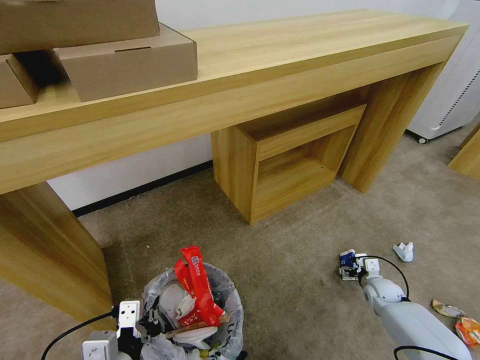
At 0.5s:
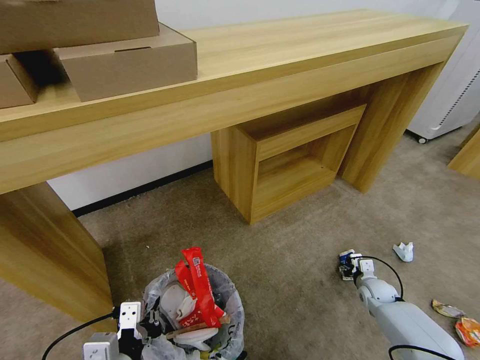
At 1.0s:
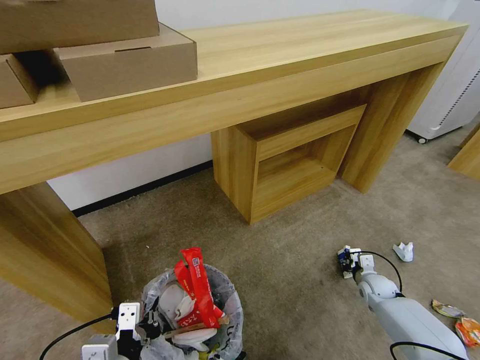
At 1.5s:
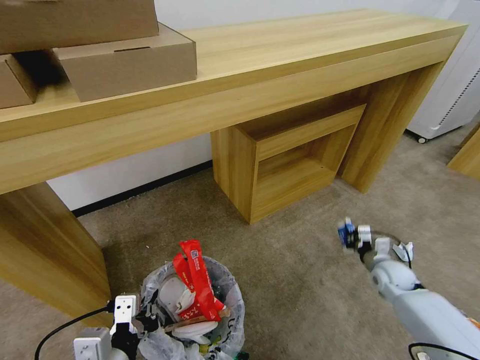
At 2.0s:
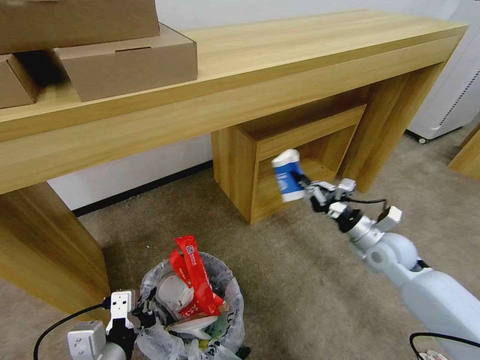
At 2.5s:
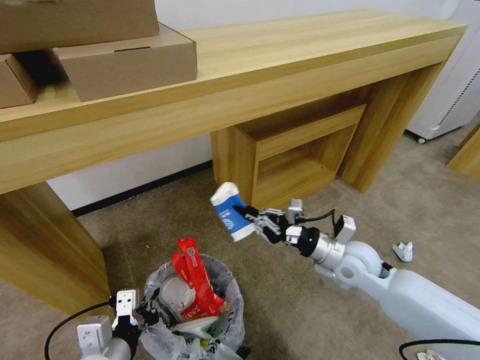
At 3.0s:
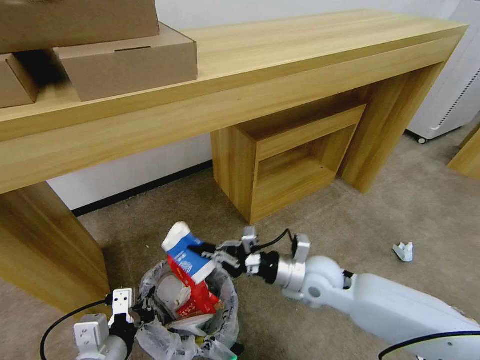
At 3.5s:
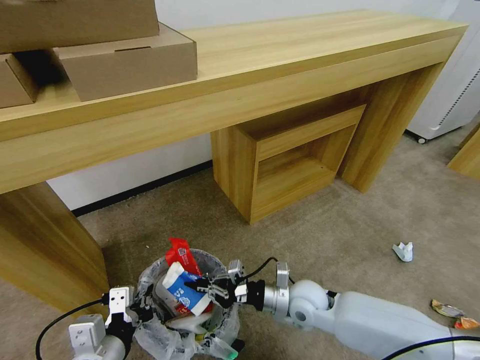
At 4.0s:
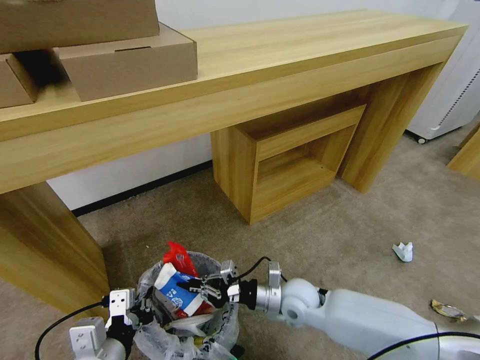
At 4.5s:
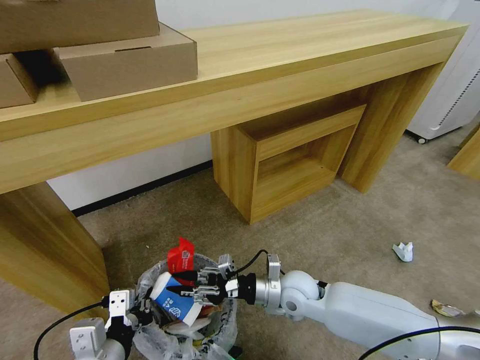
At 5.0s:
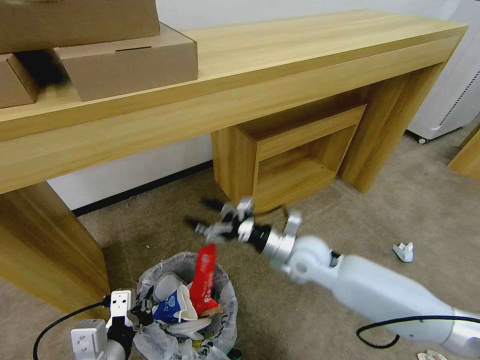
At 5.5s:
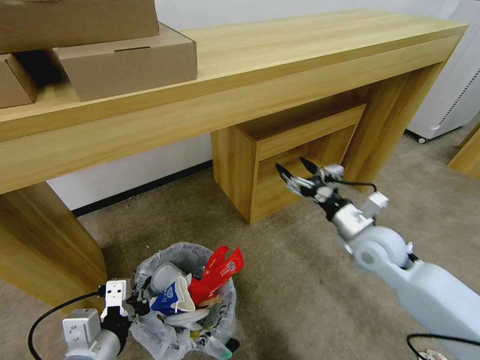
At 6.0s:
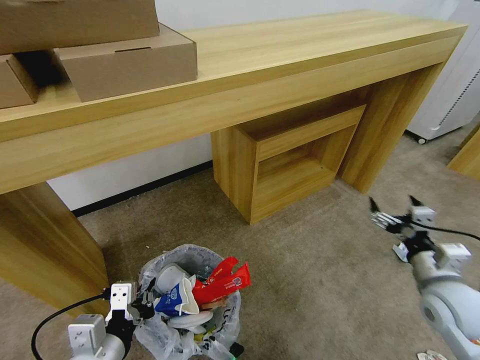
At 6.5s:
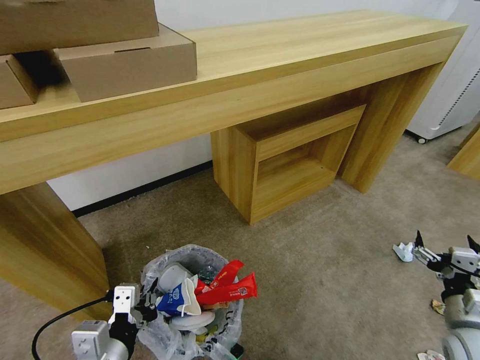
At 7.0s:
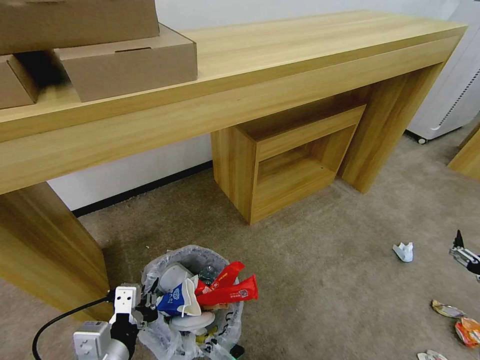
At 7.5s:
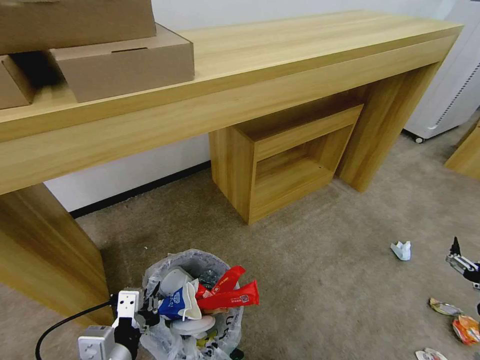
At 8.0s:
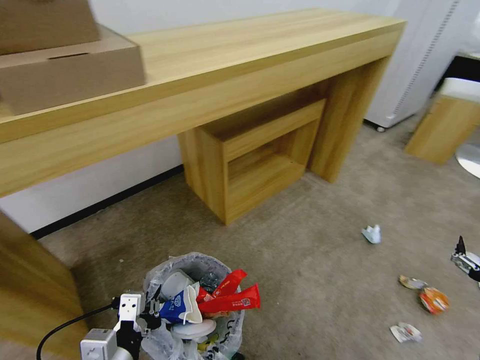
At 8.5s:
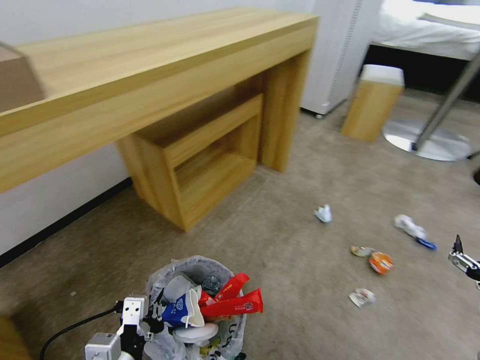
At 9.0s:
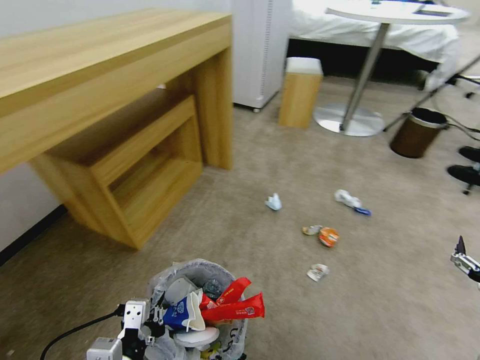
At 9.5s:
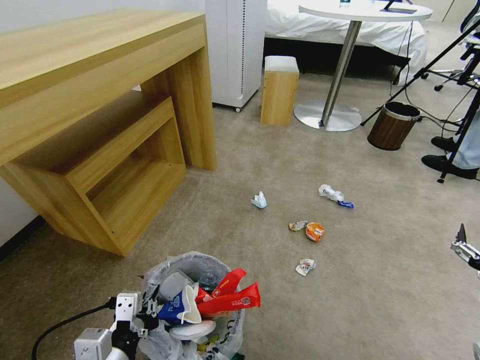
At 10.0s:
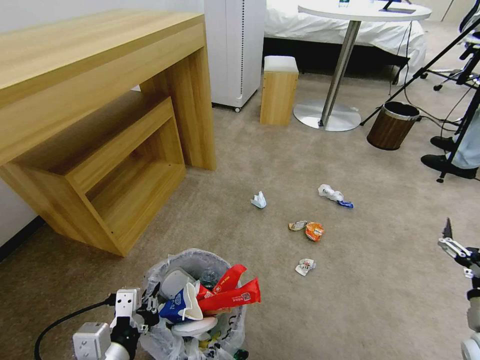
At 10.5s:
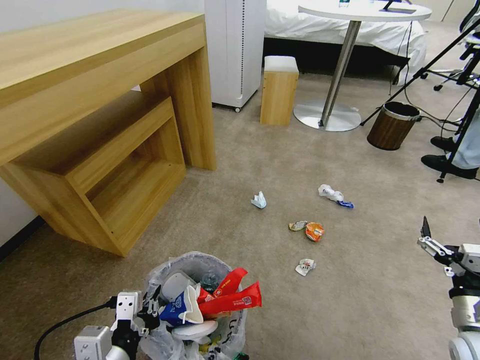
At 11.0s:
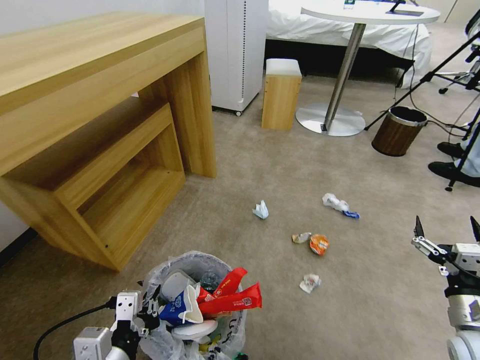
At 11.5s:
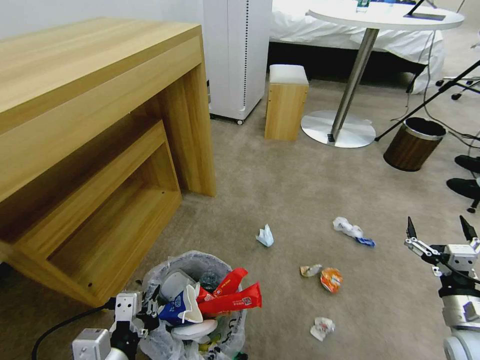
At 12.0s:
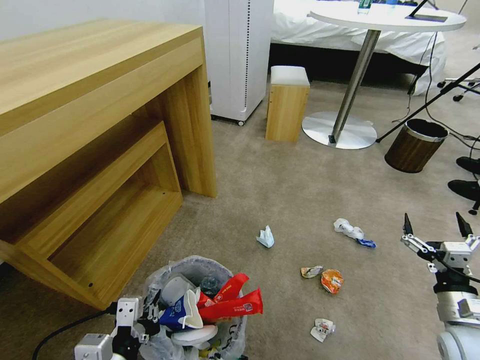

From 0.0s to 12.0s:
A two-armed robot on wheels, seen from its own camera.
Task of the whole recording: Pick up the trash bin and place the garbage on the floor into it.
From 0.0s to 2.0s: The right gripper travels upward by roughly 25 cm, and closes up.
From 2.0s to 4.0s: The right gripper is displaced to the left and downward by about 25 cm.
From 4.0s to 6.0s: The right gripper heads to the right and upward, covering about 30 cm, and opens its fingers.
From 6.0s to 8.0s: The right gripper goes about 10 cm backward and to the right.

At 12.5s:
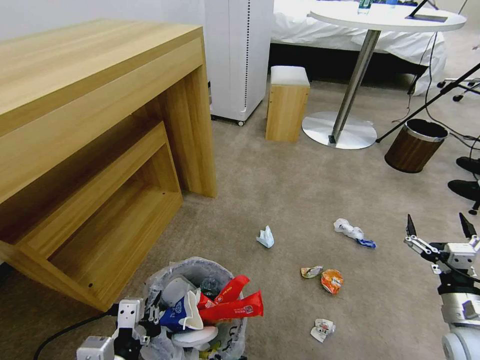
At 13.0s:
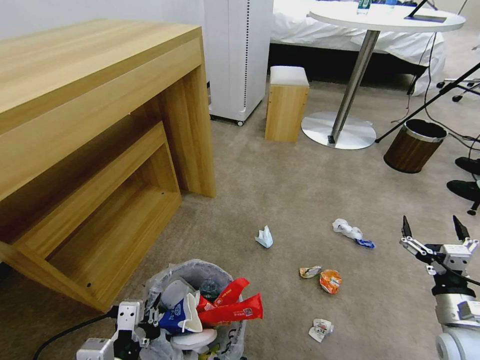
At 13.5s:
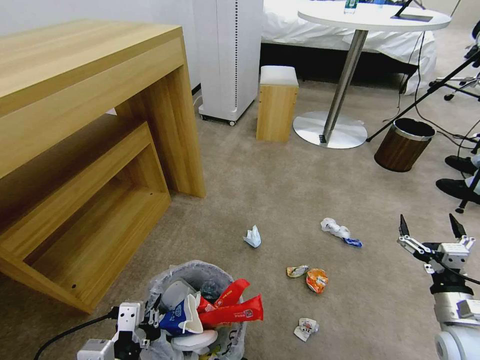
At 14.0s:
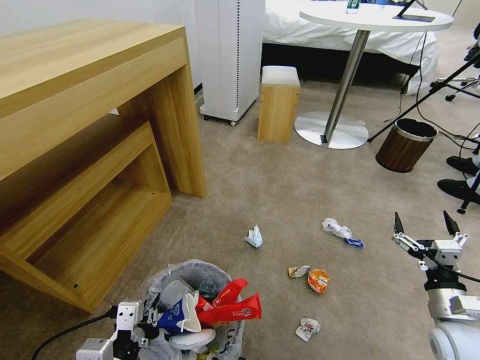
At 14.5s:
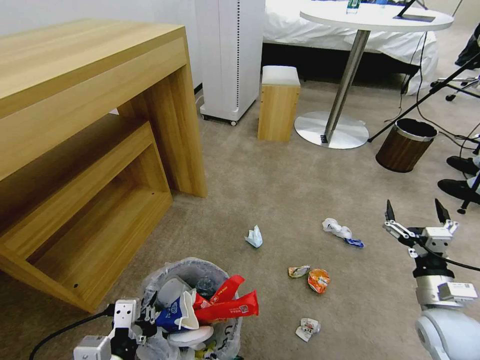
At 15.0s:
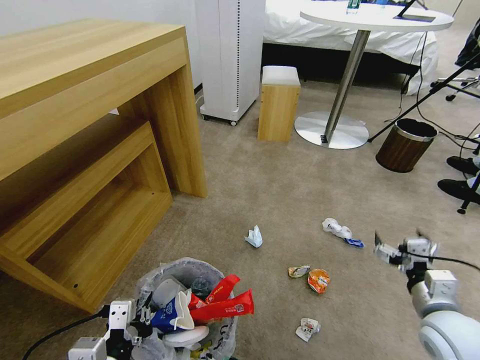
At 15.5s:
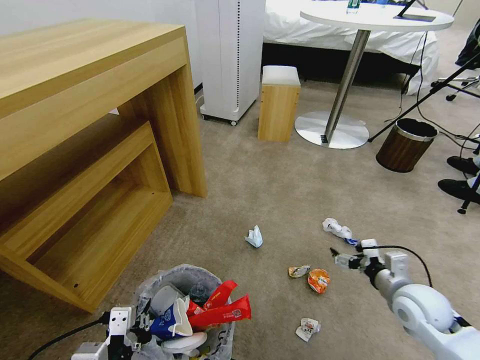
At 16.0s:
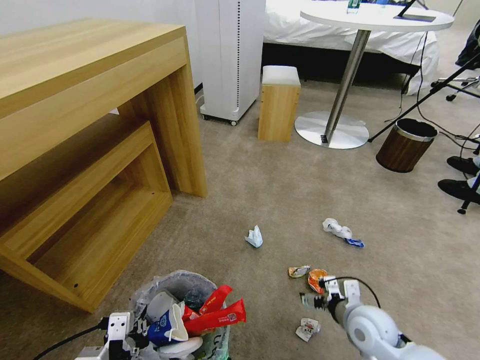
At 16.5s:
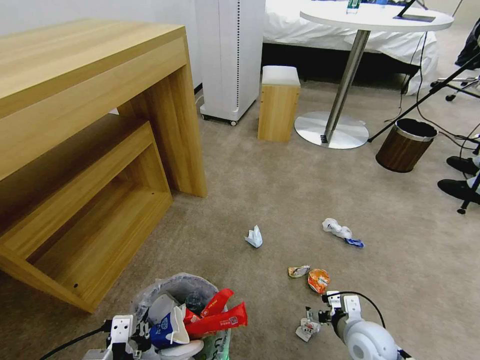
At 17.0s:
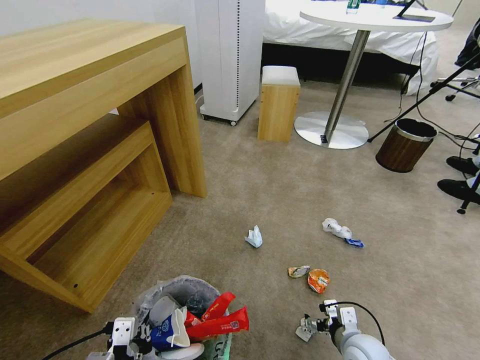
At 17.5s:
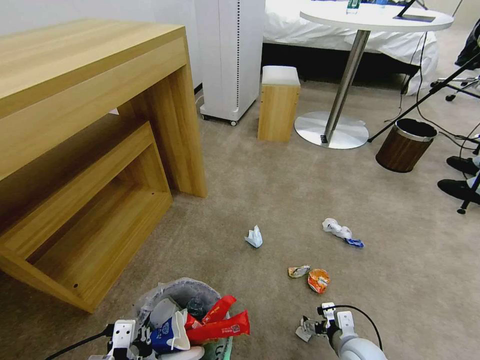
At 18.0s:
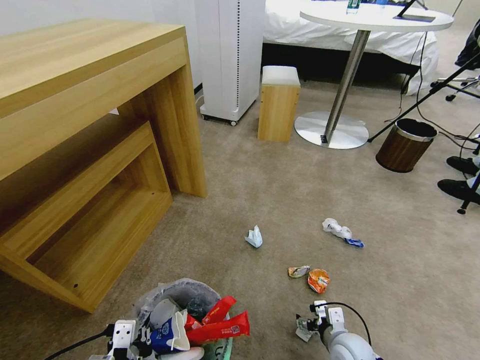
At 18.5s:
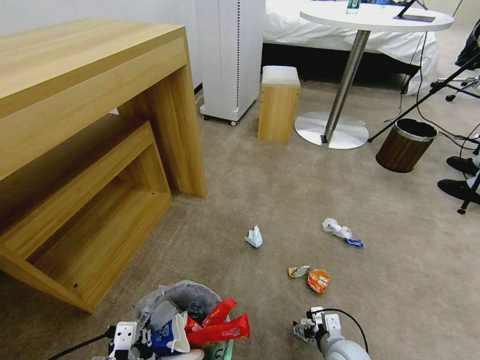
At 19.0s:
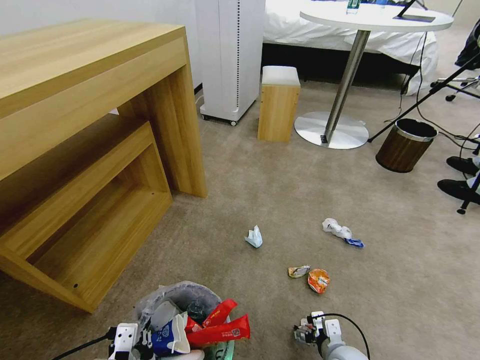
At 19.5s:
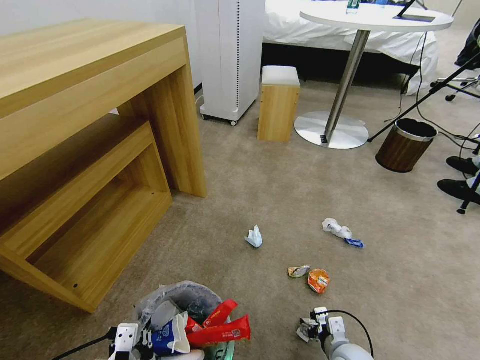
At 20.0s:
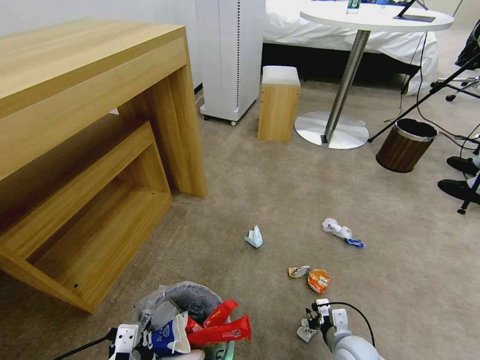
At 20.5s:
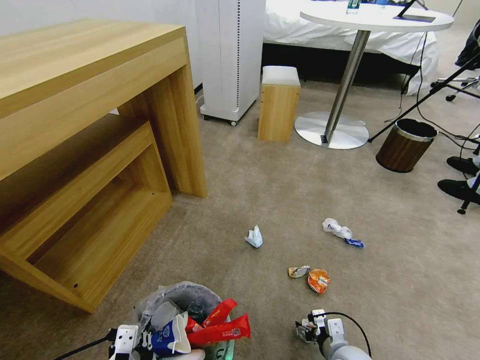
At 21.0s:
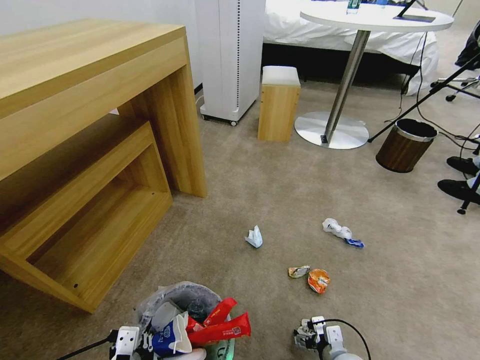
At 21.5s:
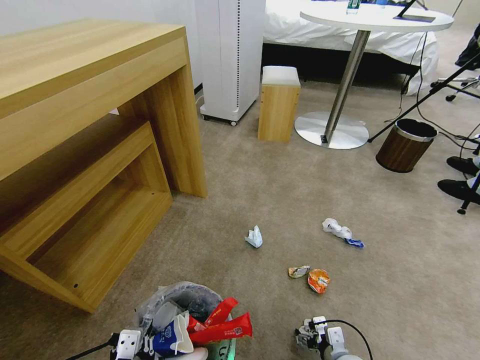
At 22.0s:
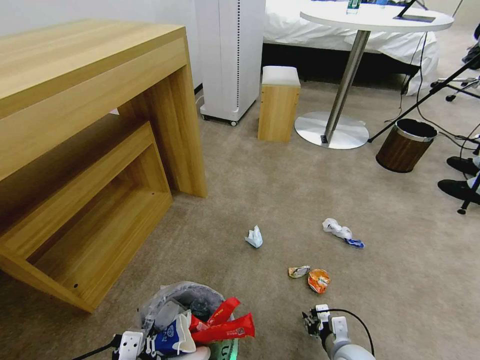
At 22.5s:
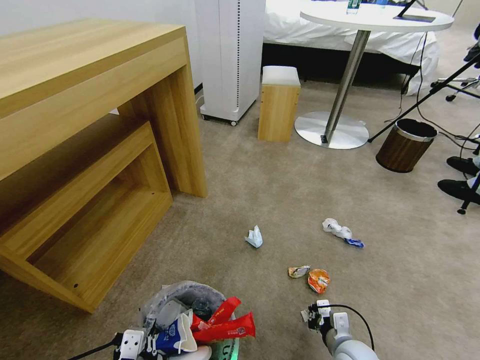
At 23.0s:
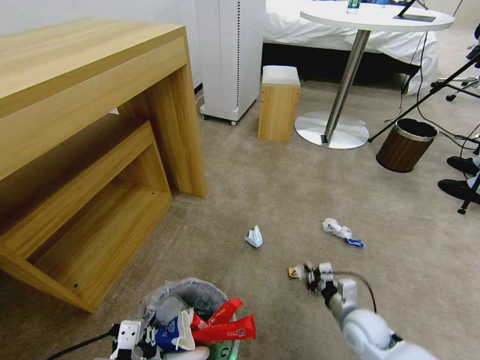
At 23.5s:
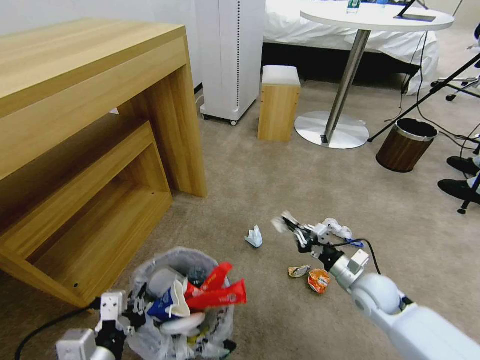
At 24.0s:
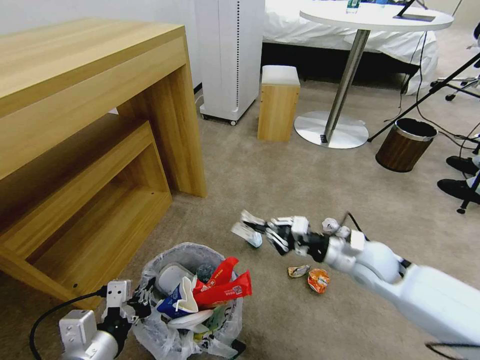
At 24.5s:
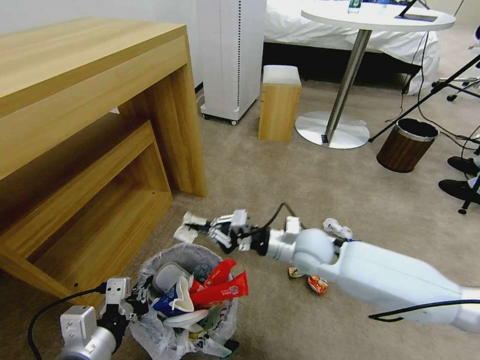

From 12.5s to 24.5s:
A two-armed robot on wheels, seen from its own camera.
Task of the whole recording: Pick up the trash bin and place the garbage on the floor into it.
From 14.5s to 16.5s: The right gripper shifts roughly 15 cm to the left and downward.
From 16.5s to 18.5s: The right gripper heads downward, covering about 5 cm.
From 18.5s to 20.5s: The right gripper closes, then reopens.
From 20.5s to 22.5s: The right gripper closes its fingers.
From 22.5s to 24.5s: The left gripper heads forward and upward, covering roughly 10 cm, while the right gripper is displaced upward, forward and to the left by approximately 30 cm.

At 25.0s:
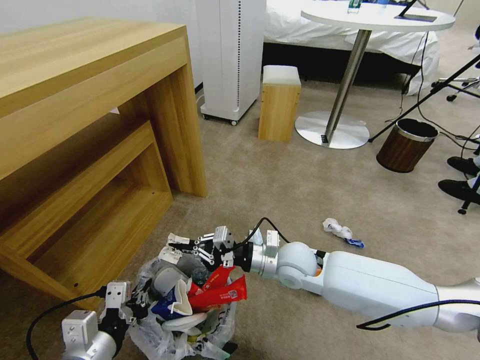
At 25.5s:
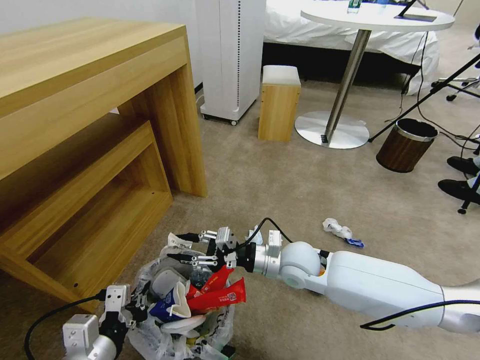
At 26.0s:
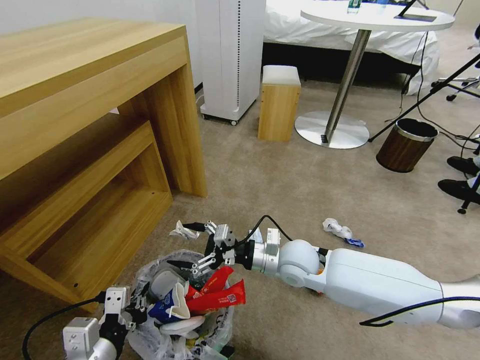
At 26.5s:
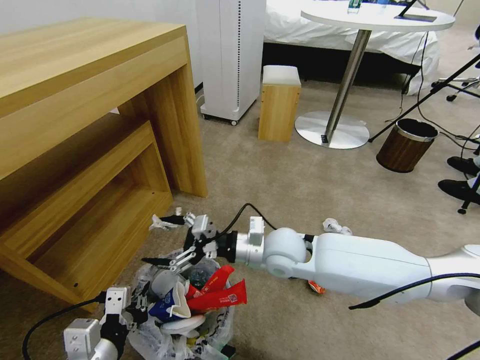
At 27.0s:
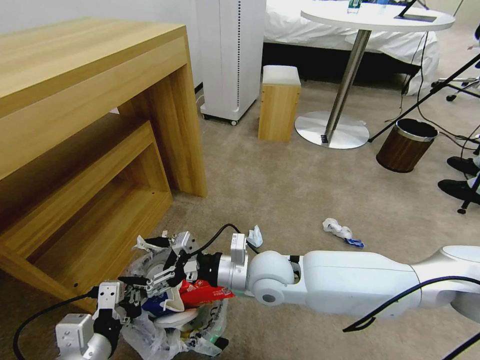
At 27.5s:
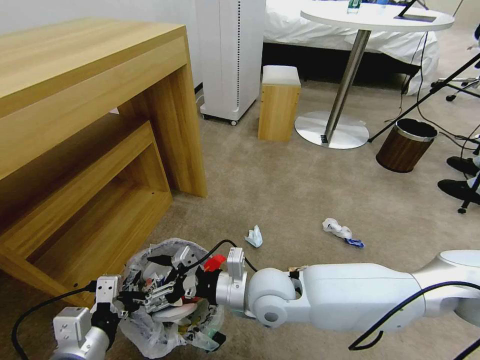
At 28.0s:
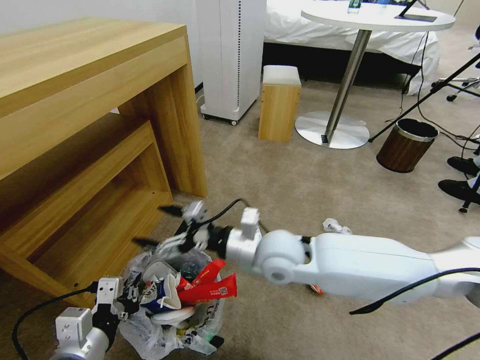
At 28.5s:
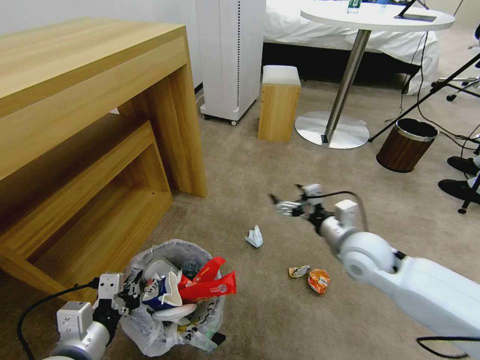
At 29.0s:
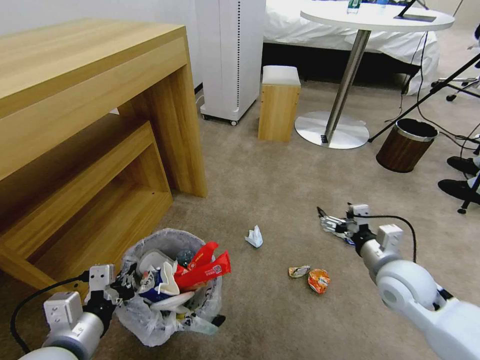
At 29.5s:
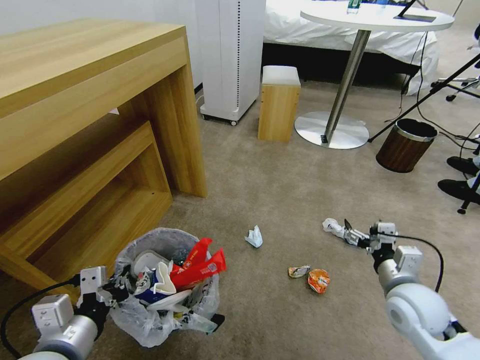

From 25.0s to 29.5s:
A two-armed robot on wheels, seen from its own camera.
Task of the whole recording: Pick up the trash bin and place the garbage on the floor into it.
From 25.0s to 27.0s: The right gripper shifts roughly 10 cm to the left and backward, and opens its fingers.
From 27.0s to 29.5s: The right gripper shifts about 30 cm to the right.
